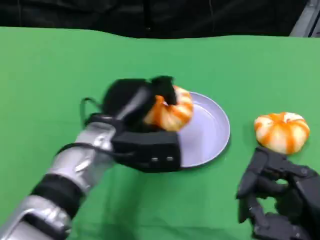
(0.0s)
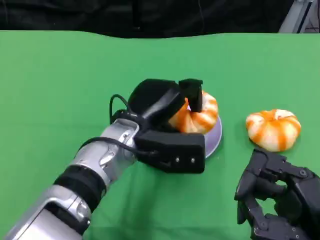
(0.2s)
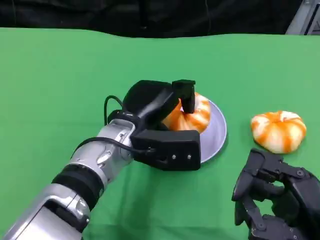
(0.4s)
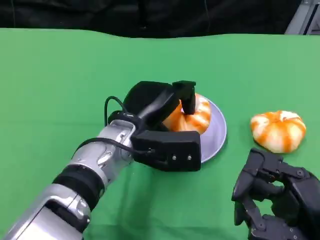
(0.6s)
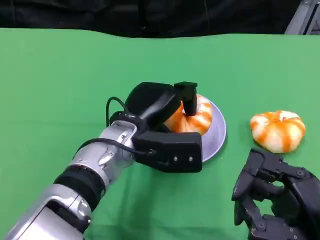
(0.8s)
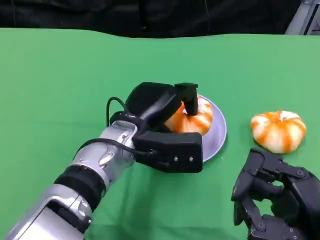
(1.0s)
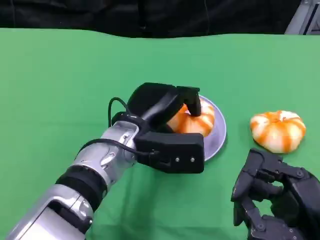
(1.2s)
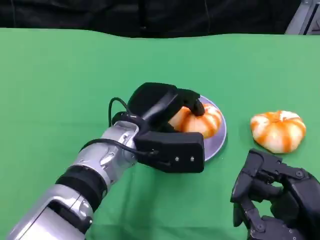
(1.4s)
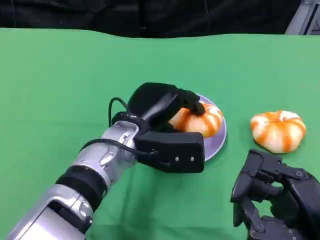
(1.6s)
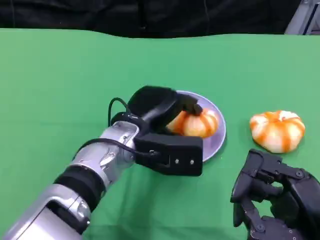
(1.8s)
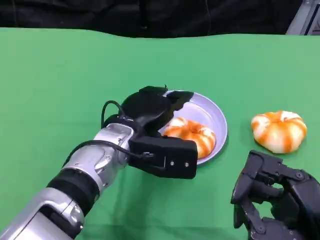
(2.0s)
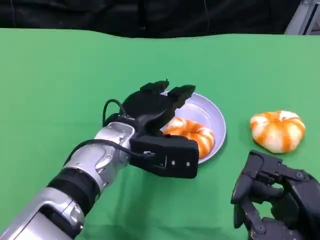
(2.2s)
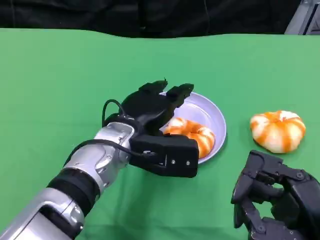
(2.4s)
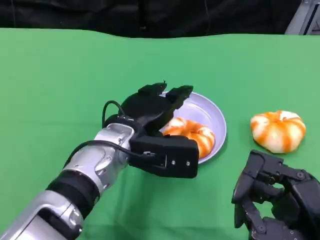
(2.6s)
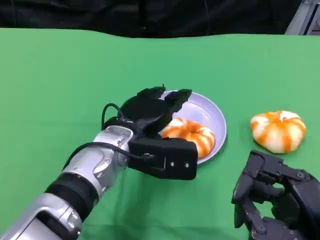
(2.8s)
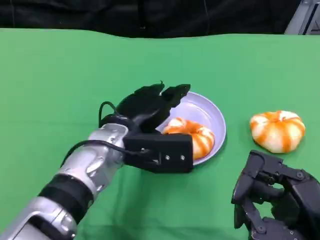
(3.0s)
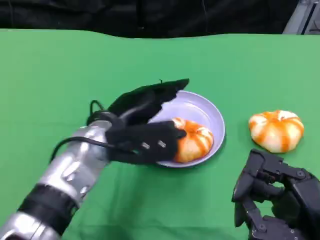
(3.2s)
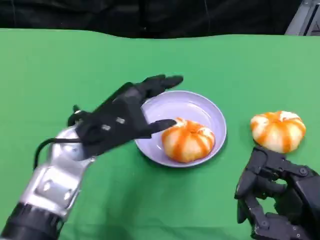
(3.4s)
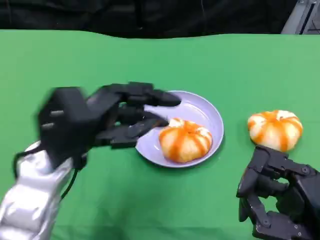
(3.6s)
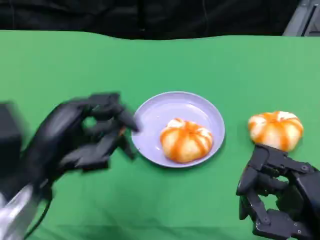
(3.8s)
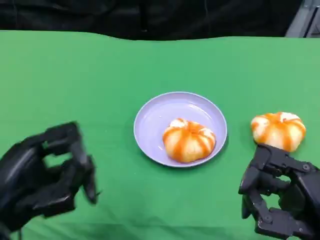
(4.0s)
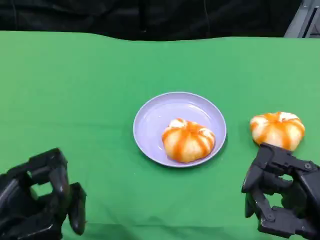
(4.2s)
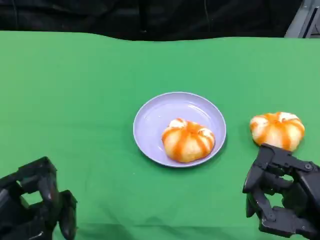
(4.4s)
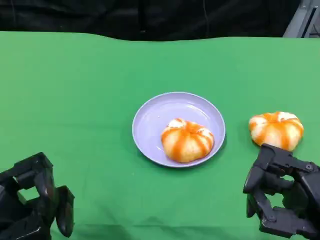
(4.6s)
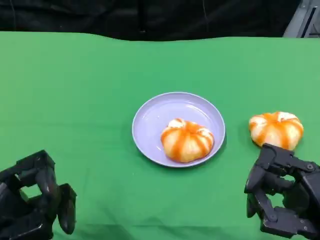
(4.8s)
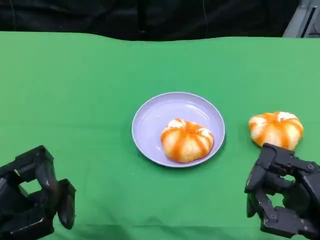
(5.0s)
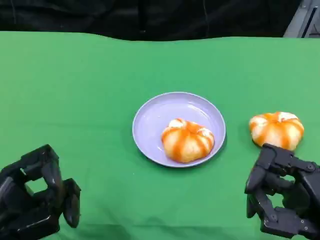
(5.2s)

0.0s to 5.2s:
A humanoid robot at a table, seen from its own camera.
Task of the whole recording: Grasp the bread from the table and place it into the plate.
1.8s to 3.4s: The left hand goes some 5 cm to the left.
3.4s to 5.2s: The left hand shifts some 20 cm backward and to the left.

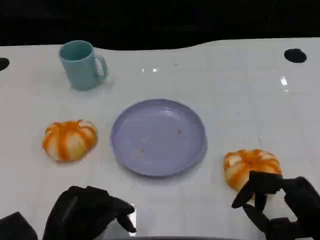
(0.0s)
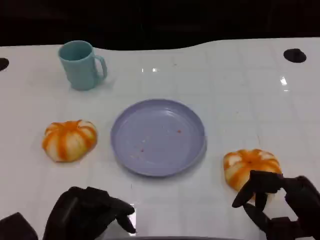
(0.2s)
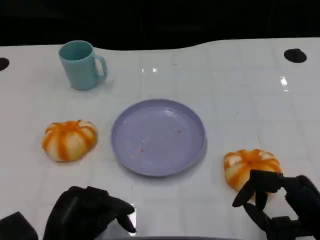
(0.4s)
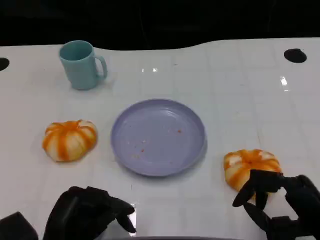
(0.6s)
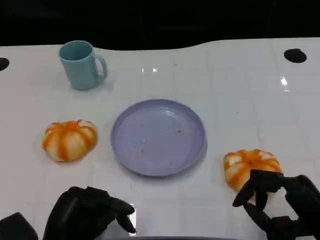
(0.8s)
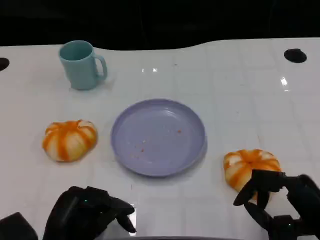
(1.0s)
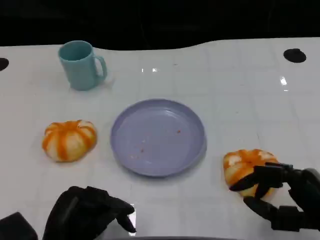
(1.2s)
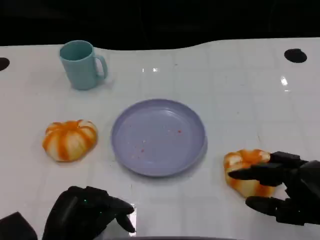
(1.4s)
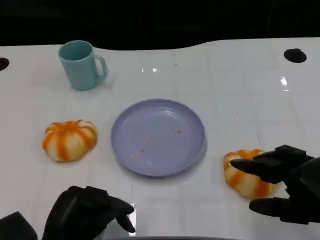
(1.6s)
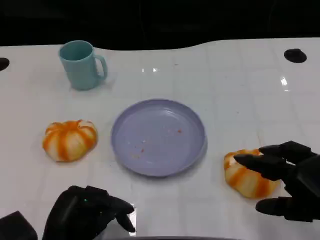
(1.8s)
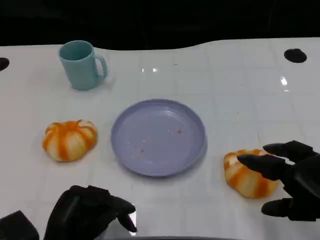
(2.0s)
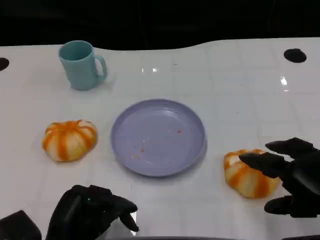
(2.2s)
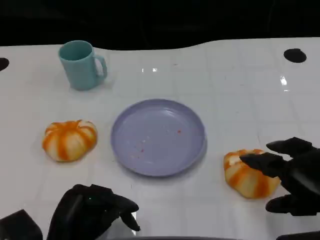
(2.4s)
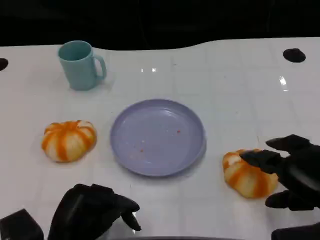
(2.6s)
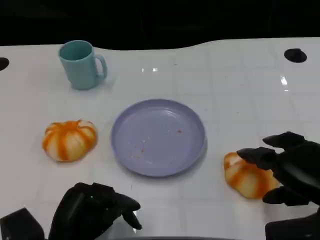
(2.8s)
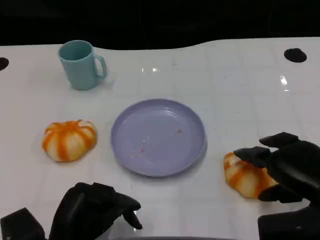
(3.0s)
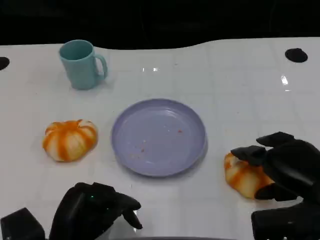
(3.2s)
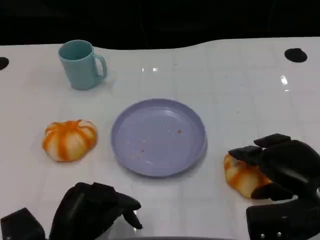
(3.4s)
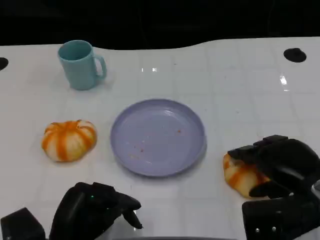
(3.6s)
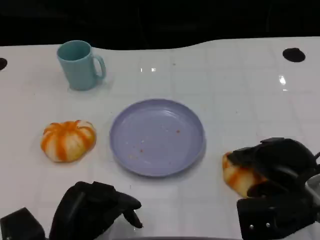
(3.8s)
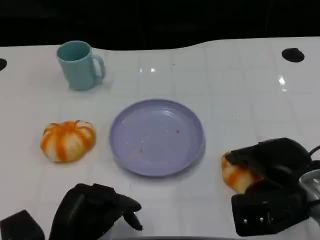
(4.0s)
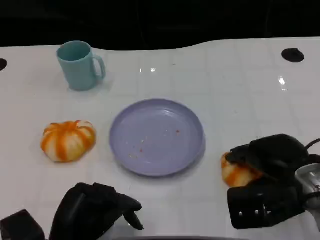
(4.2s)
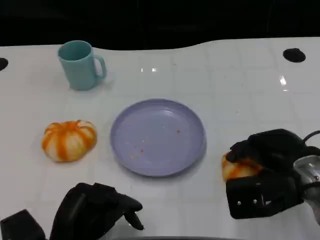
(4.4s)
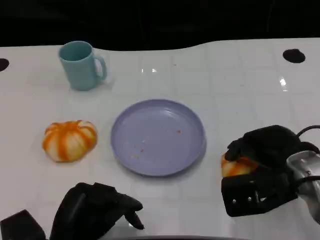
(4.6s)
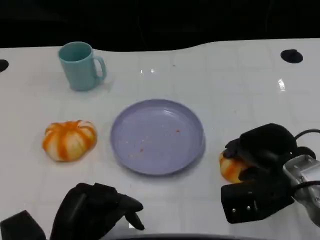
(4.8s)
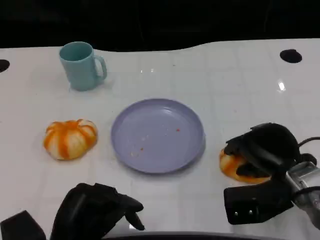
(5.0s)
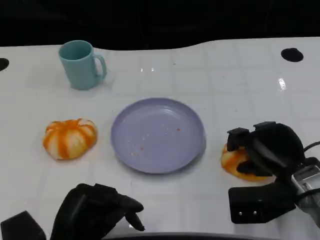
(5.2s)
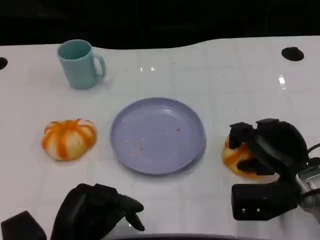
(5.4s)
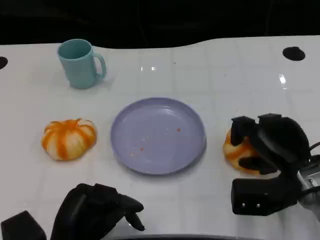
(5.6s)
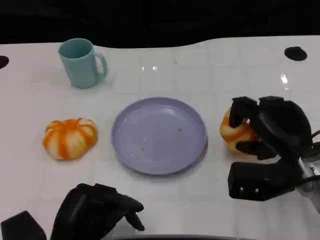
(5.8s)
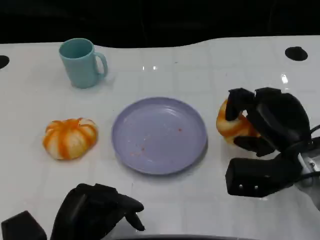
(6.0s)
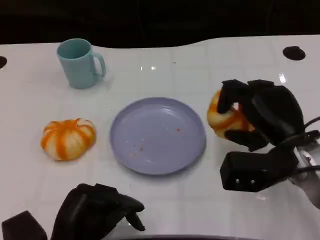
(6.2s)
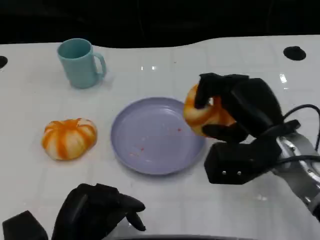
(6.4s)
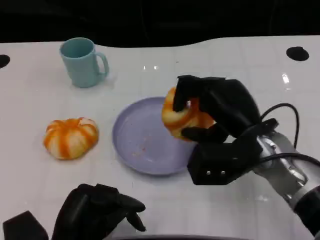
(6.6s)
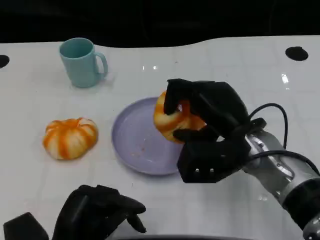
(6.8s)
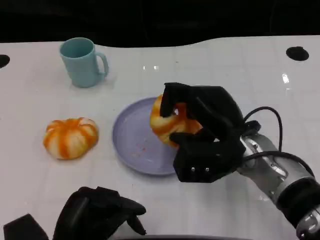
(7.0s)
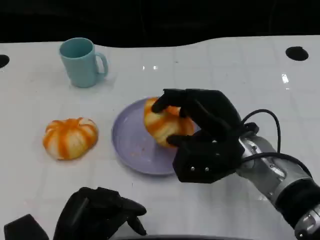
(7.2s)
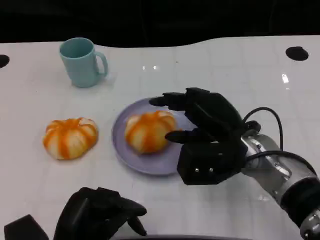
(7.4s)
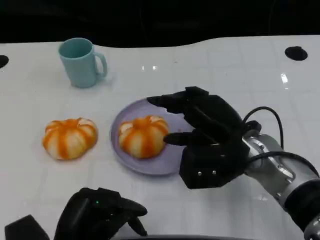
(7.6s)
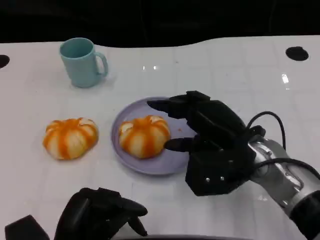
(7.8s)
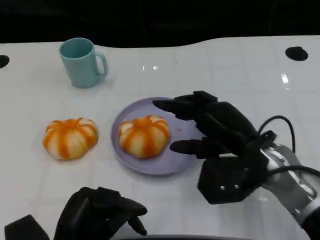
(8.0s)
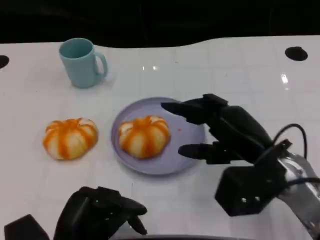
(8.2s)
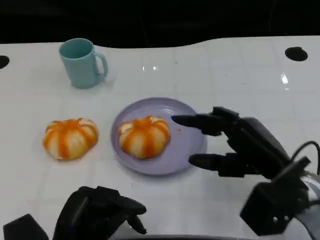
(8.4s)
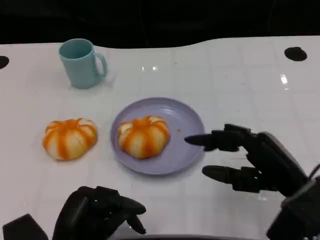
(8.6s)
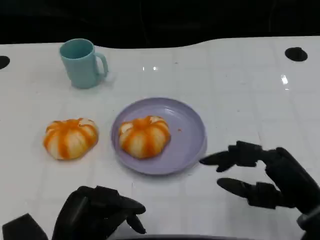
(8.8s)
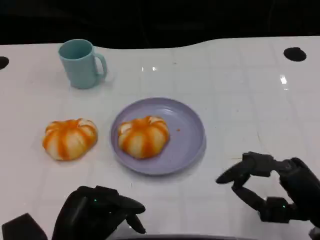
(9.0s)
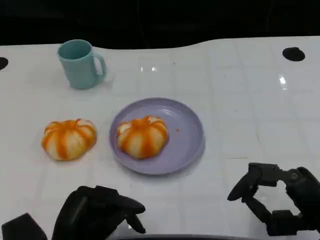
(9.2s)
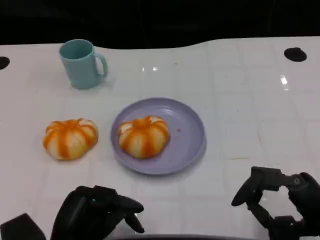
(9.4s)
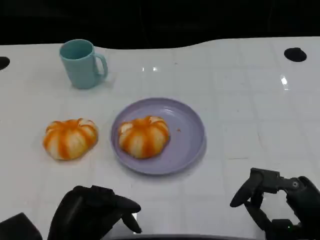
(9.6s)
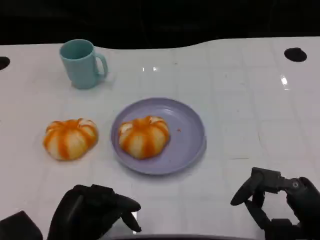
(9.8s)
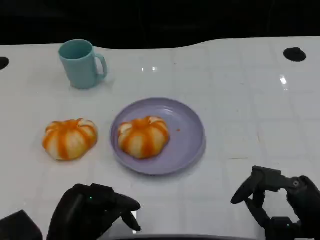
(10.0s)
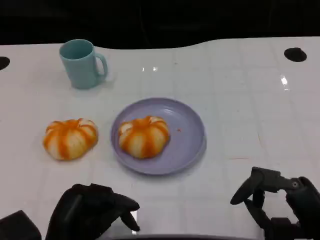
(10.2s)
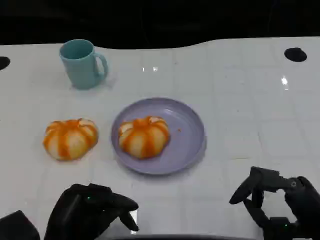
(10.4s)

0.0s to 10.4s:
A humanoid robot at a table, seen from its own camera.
Task of the whole recording: Grasp the bread from the table and place it into the plate.
1.4s to 3.0s: The right hand shifts by approximately 5 cm.
3.0s to 4.4s: The right hand ends up approximately 5 cm from where it was.
6.0s to 7.4s: The right hand shifts some 10 cm to the left.
7.4s to 9.0s: The right hand moves backward and to the right, approximately 15 cm.
9.0s to 10.4s: There are only small adjustments of the hands.
